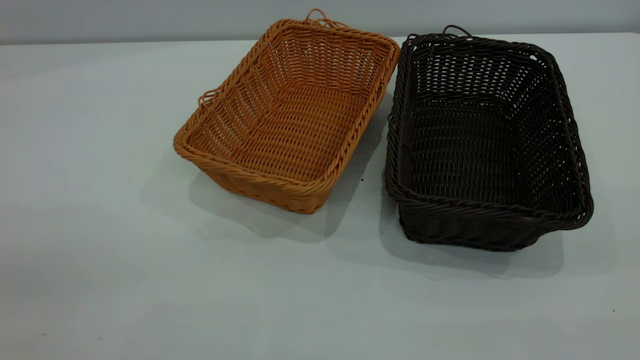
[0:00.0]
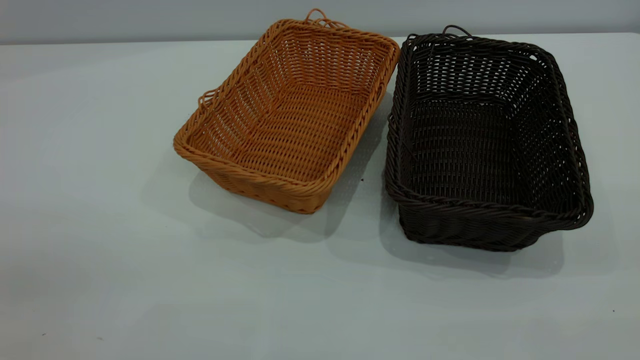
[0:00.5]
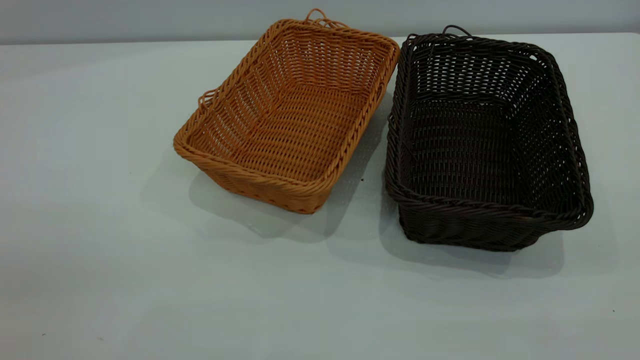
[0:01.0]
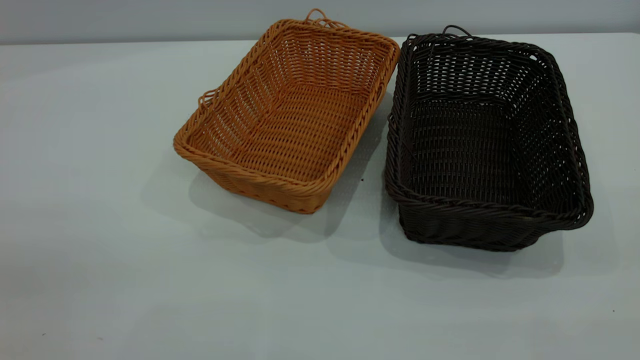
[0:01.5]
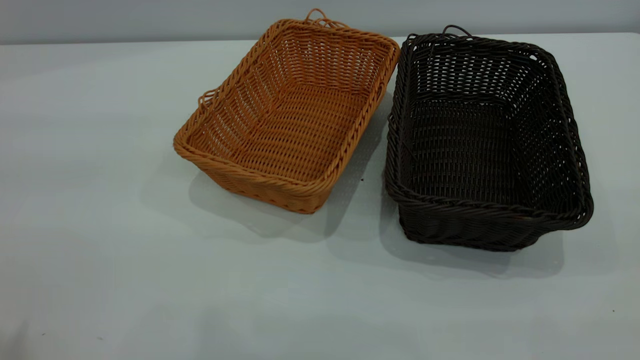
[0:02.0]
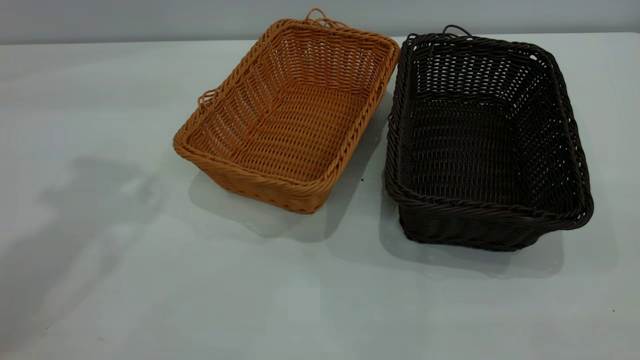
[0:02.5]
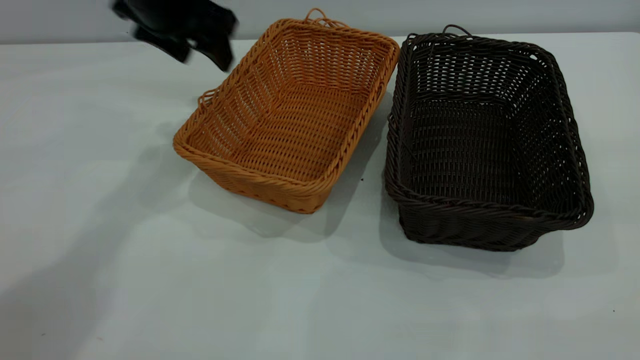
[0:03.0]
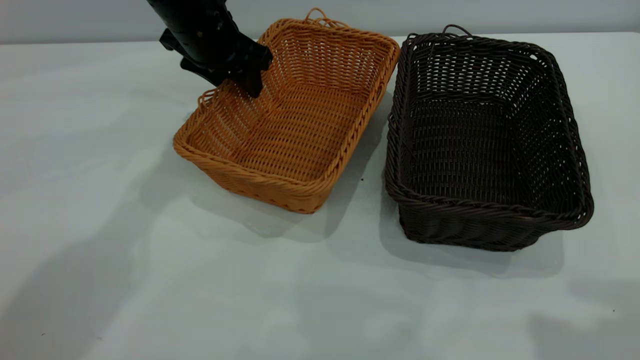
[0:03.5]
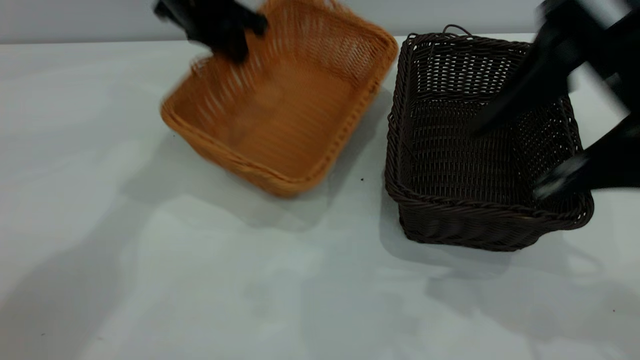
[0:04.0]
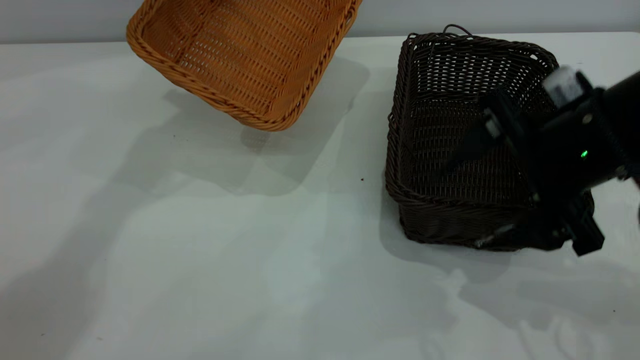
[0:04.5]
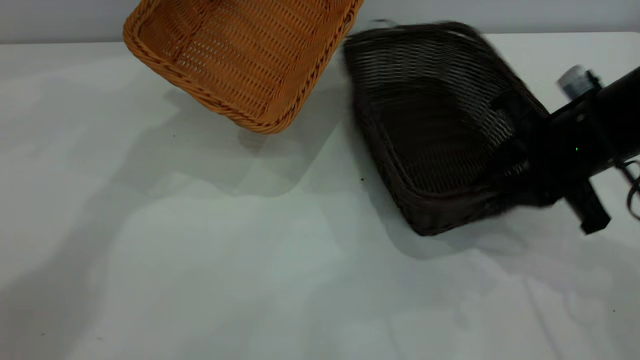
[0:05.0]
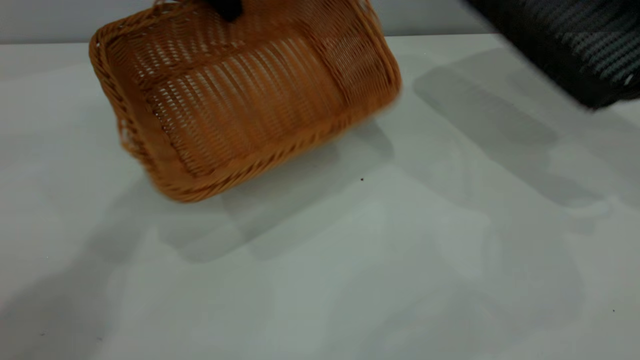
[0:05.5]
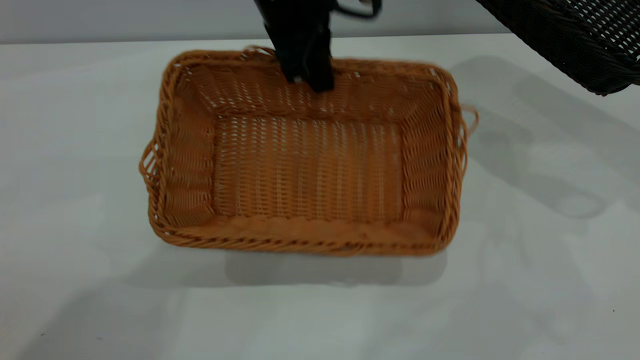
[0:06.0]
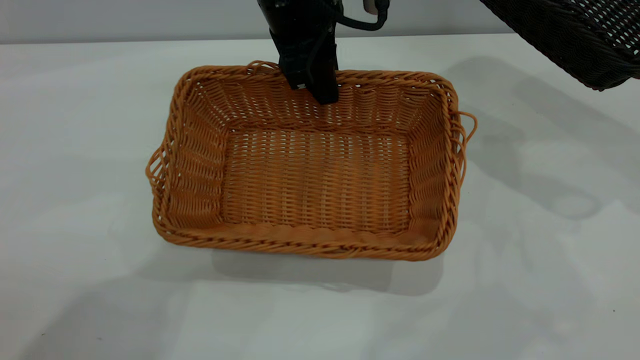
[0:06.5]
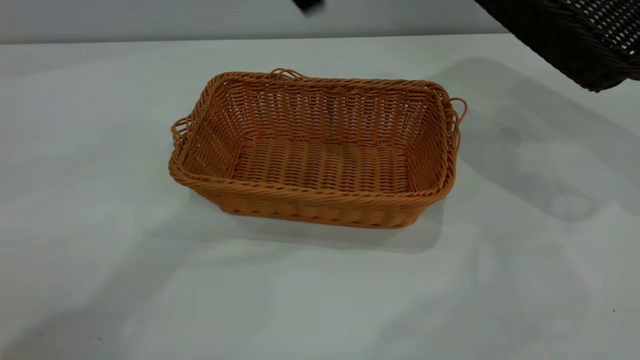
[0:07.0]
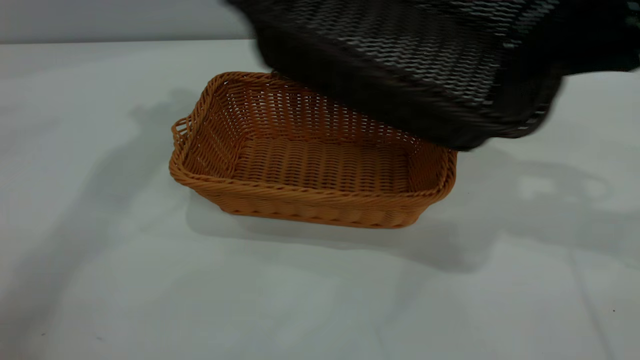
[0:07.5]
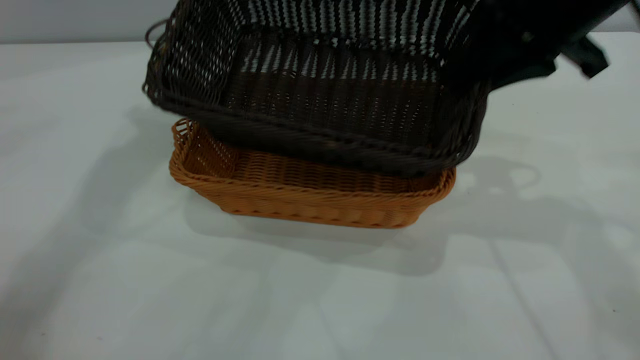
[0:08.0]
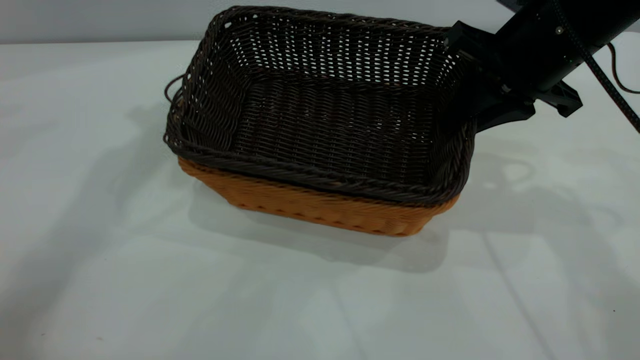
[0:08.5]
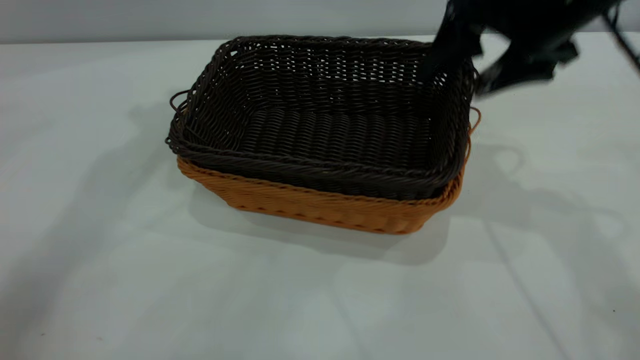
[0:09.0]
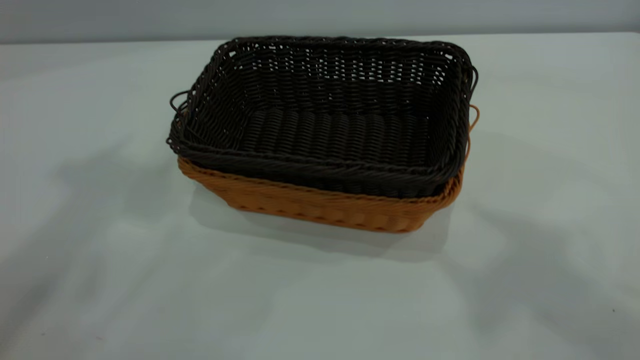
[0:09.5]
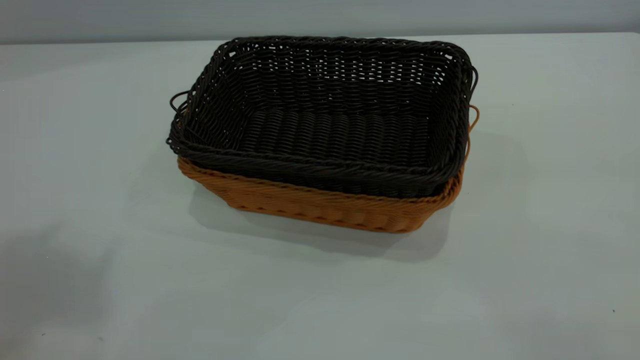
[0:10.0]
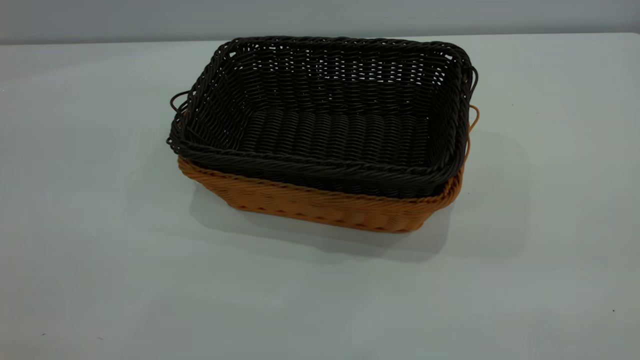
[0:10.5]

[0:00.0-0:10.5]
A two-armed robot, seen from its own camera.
Task of the whole recording: the left gripper grasp the brown basket and place it in the center of the table, the right gripper grasp the black basket and place it inside the brown one.
Step, 0:00.0 to 0:05.0: Pick up the light basket with the right gripper.
Step, 0:05.5 to 0:06.5: Place the light-colored basket in the center.
Step, 0:07.0 to 0:08.5: Place the dark basket on top of the light basket.
0:02.0 to 0:04.0: The left gripper is displaced forward, downward and to the right by about 40 cm, and closes up; the right gripper travels forward, downward and to the left by approximately 30 cm.
0:04.0 to 0:06.5: The left gripper shifts some 15 cm to the right and backward, and opens. Meanwhile the right gripper is displaced to the right by approximately 20 cm, and closes up.
0:06.5 to 0:08.5: The right gripper travels to the left by approximately 20 cm; the left gripper is displaced upward and to the left by roughly 25 cm, and opens up.
0:08.5 to 0:10.5: The right gripper heads backward and upward, covering roughly 40 cm, and opens up. Meanwhile the left gripper shifts some 35 cm backward.

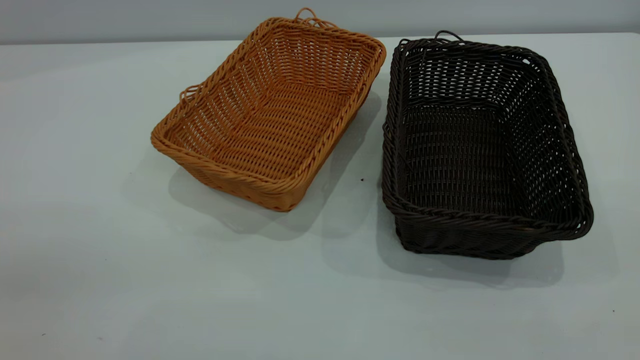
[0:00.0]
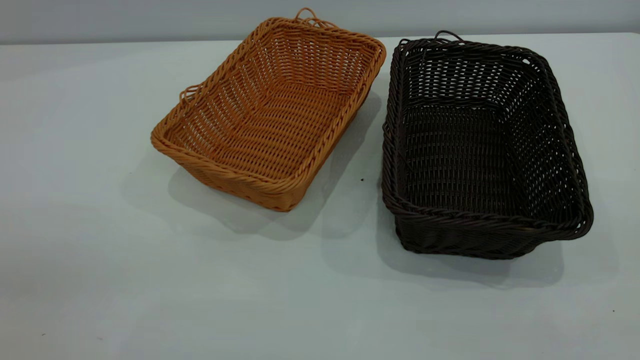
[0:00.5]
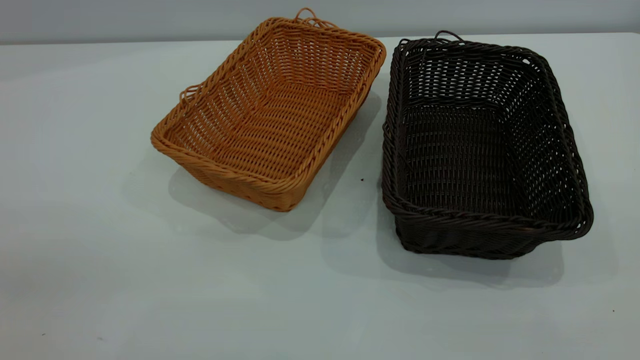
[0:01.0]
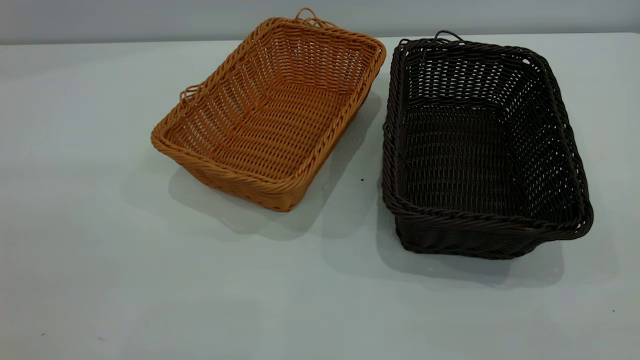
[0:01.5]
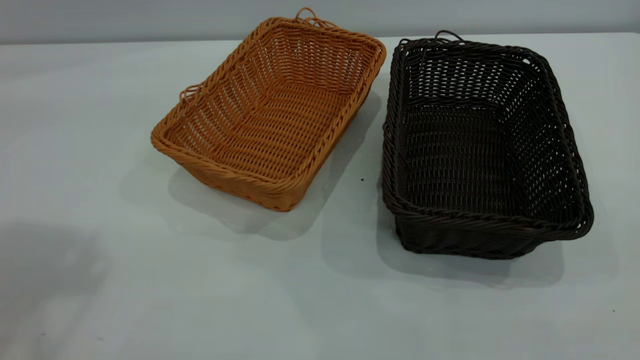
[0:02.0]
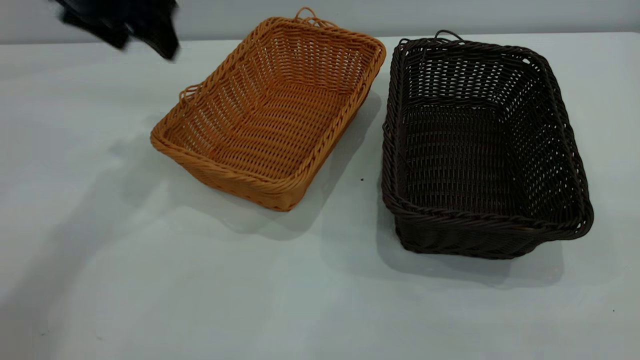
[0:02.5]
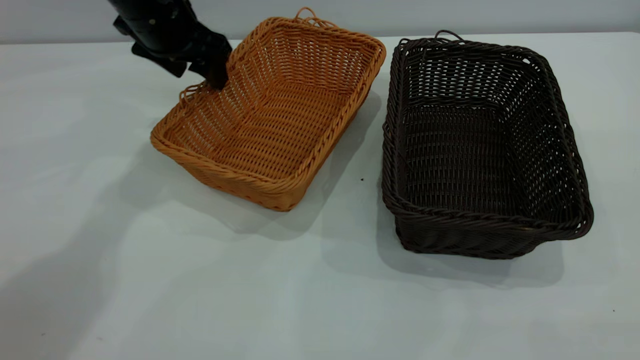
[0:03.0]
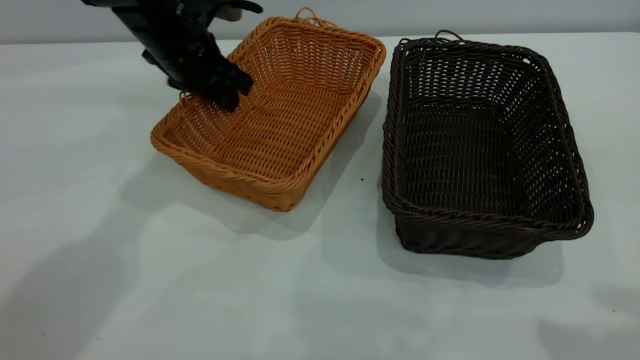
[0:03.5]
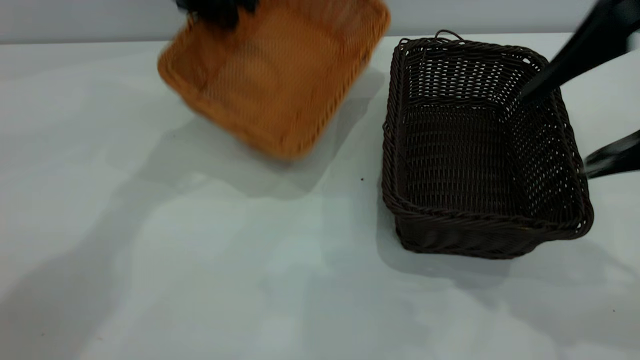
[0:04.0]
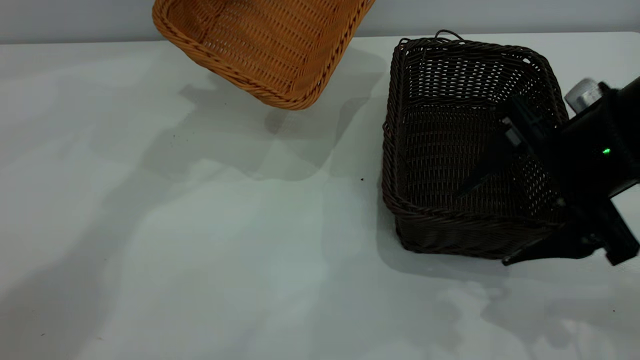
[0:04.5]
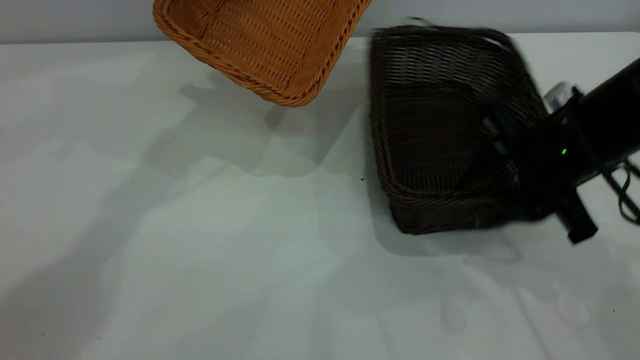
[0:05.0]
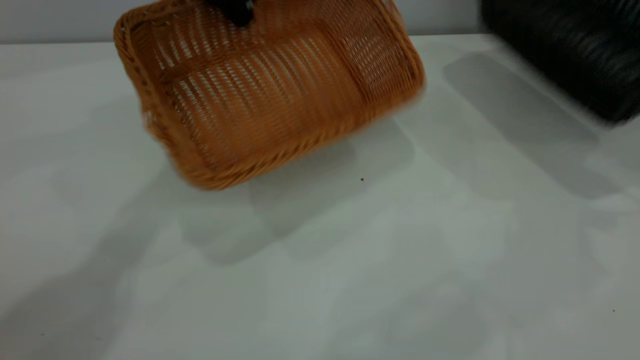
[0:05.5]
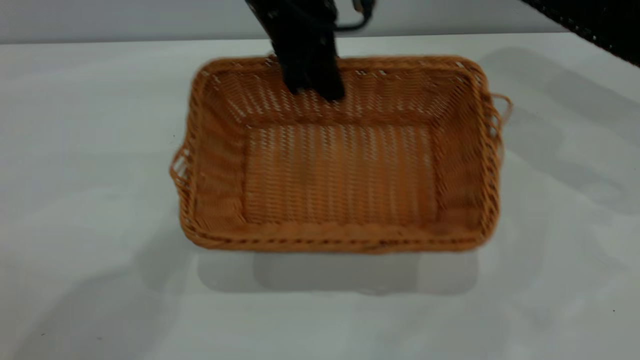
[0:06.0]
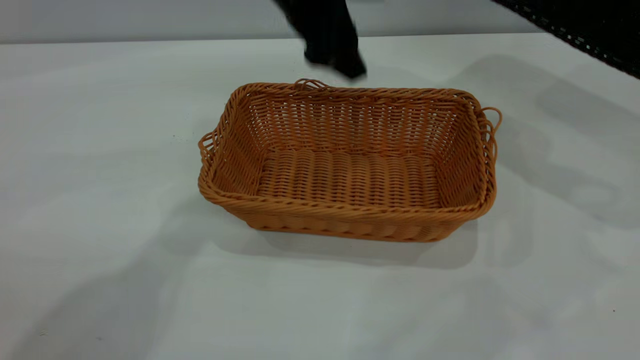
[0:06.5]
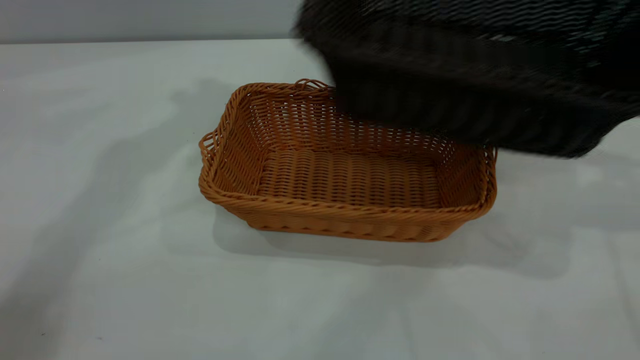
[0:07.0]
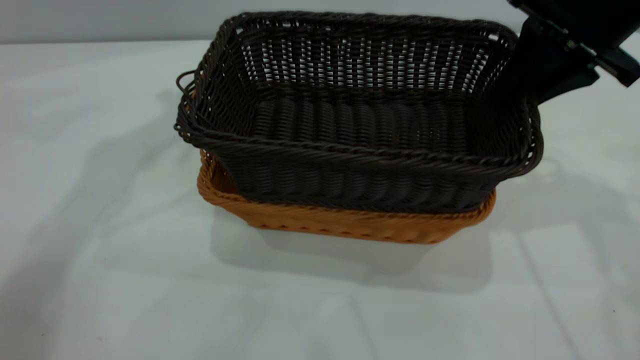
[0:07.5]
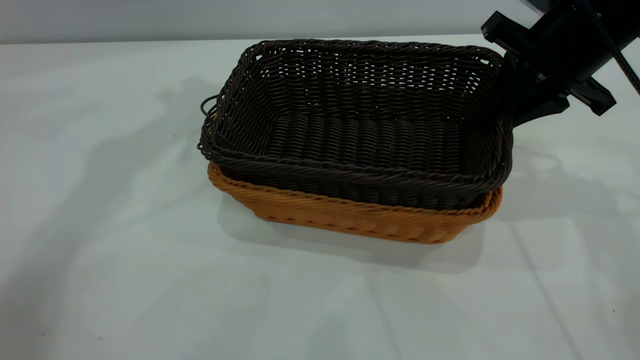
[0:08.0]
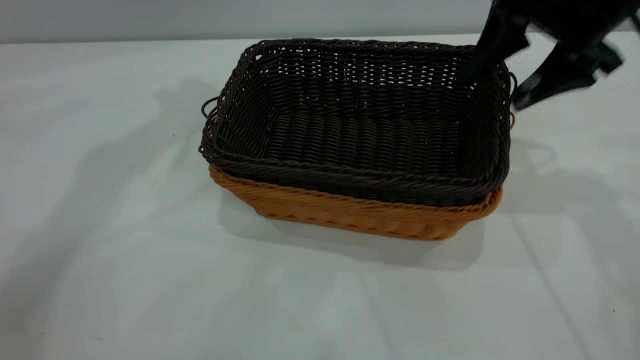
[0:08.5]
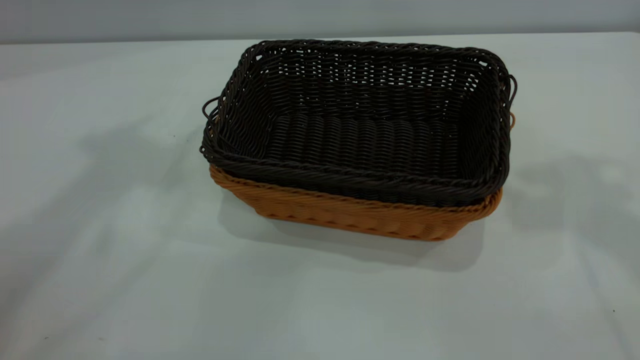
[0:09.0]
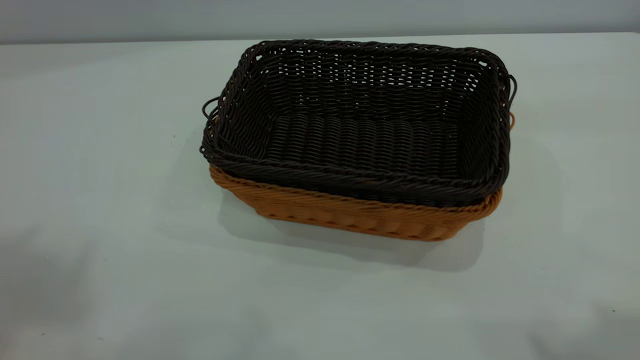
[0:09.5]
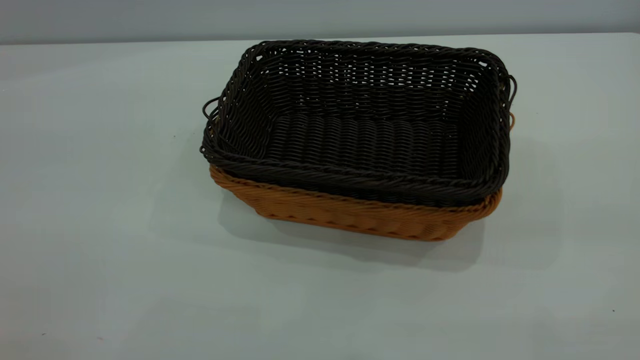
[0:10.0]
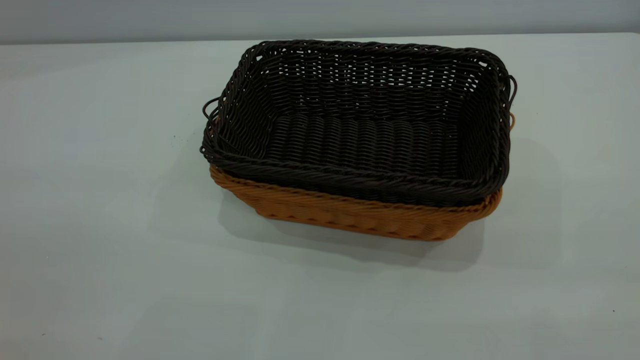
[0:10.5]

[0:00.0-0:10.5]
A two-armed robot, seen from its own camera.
Task of the whole recording: the left gripper grasp the brown basket and place it in the center of the table, the right gripper grasp the black basket and place it inside the brown one.
Step, 0:00.0 to 0:05.0: Pick up the light basket with the right gripper.
Step, 0:05.5 to 0:06.5: Place the light-colored basket in the center.
Step, 0:07.0 to 0:08.5: Place the dark basket on top of the light basket.
0:02.0 to 0:04.0: The right gripper travels forward and downward by some 25 cm, while the left gripper shifts roughly 35 cm forward, downward and to the right, and closes up.
0:04.0 to 0:06.5: The right gripper travels to the right and forward by about 25 cm, and closes, while the left gripper goes roughly 15 cm to the right and backward, and opens its fingers.
0:06.5 to 0:08.5: The right gripper travels to the left by approximately 20 cm, and opens its fingers. Meanwhile the left gripper goes about 20 cm upward and to the left.
0:08.5 to 0:10.5: The two grippers go approximately 40 cm backward.
